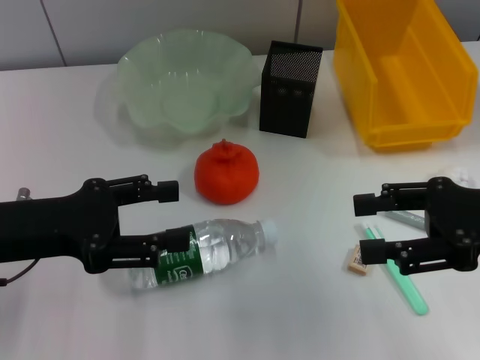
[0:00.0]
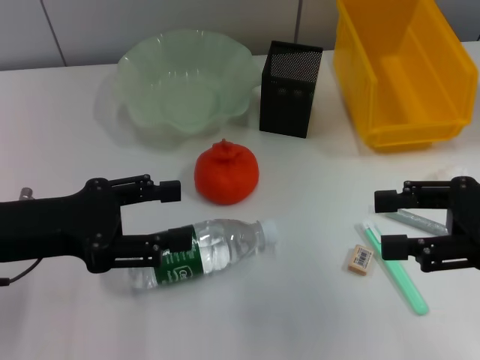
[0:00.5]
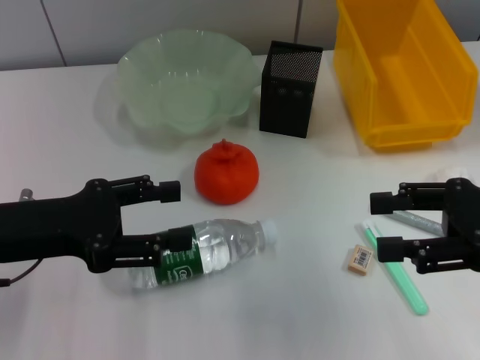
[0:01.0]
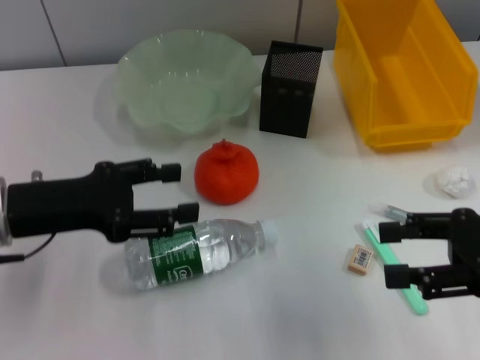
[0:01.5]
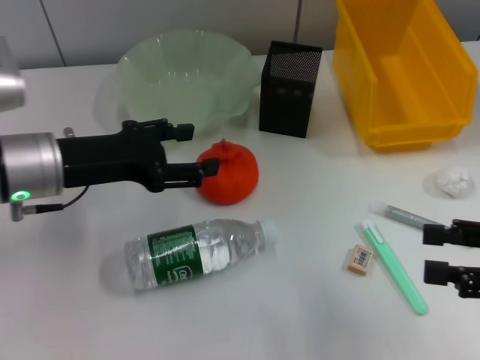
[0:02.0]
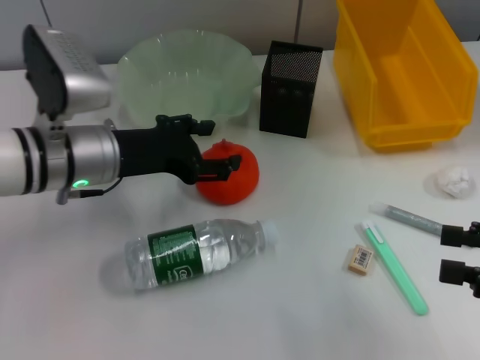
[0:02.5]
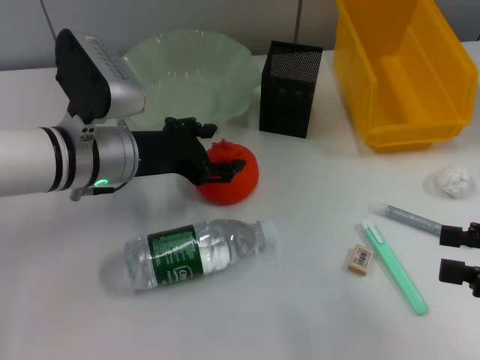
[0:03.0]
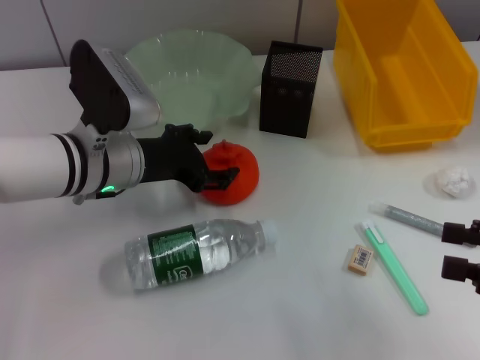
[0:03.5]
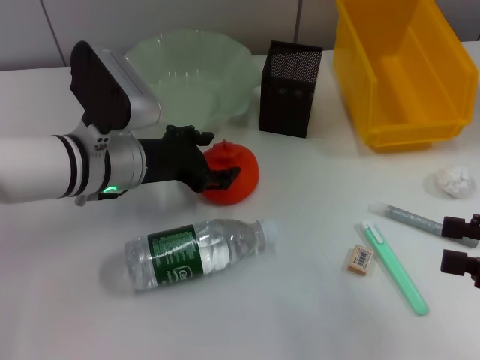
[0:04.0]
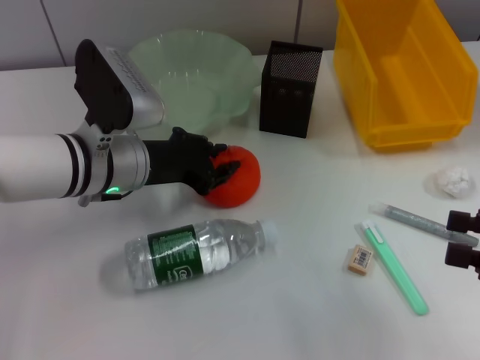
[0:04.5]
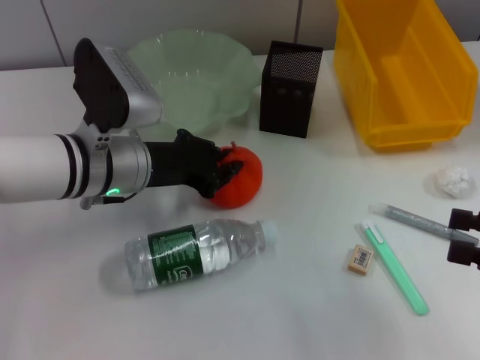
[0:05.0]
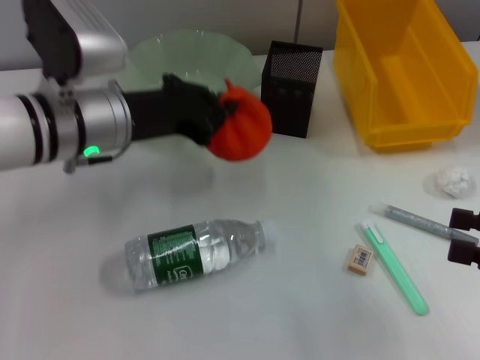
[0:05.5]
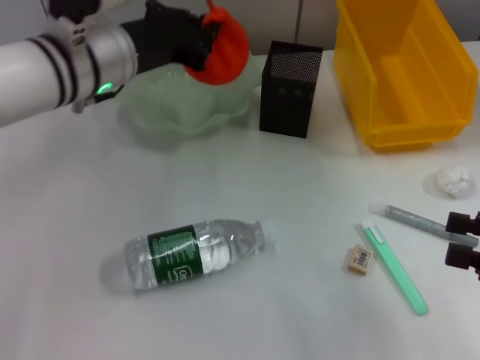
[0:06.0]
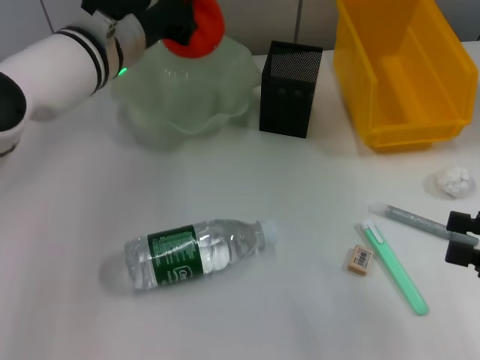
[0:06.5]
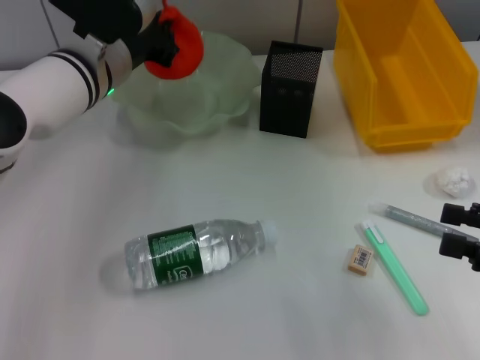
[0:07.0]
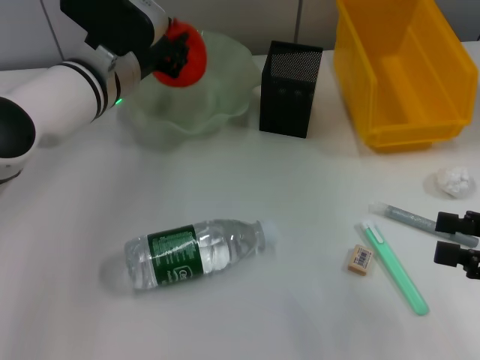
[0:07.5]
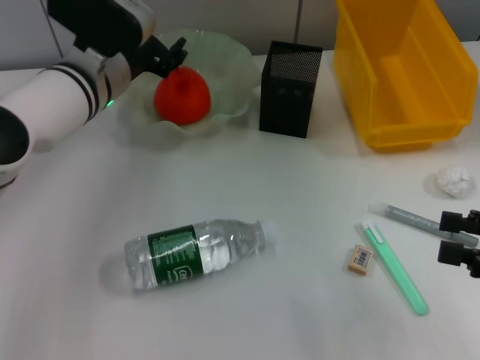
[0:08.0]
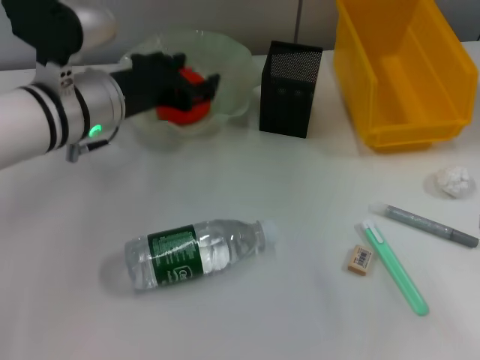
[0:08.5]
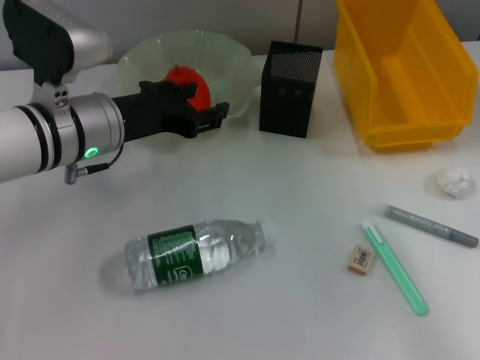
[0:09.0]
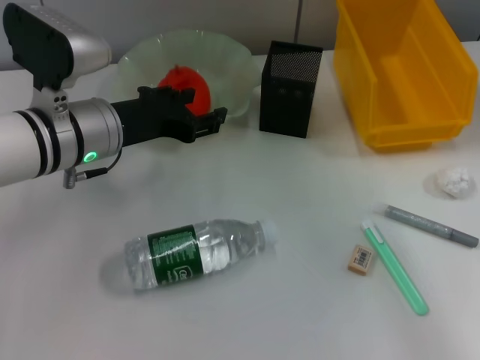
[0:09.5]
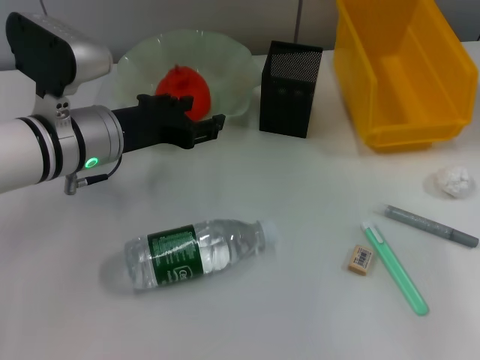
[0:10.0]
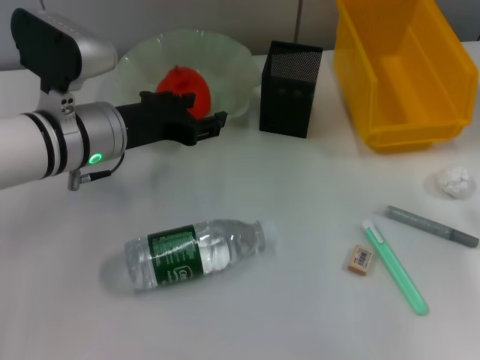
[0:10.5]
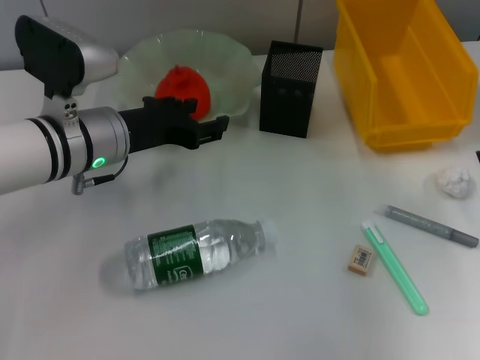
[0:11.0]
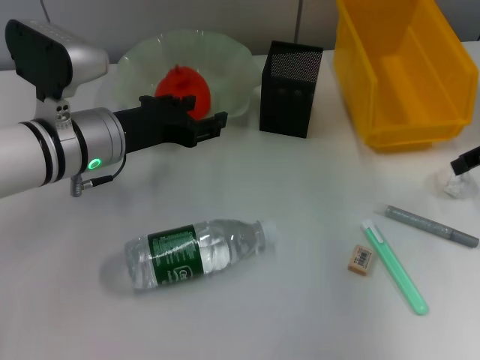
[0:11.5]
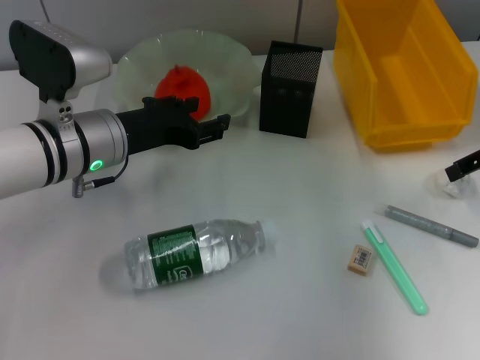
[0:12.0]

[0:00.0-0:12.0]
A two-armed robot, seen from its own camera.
Step, 0:00.0 to 0:04.5: Grab the orange with the left hand.
Step, 0:05.0 to 0:07.5: Place the orange into the fruit bowl with the left hand.
0:00.0 to 0:02.0: The left gripper heads forward, covering roughly 5 cm. The right gripper is displaced to the right and backward by roughly 5 cm.
0:02.0 to 0:04.0: The left gripper travels to the right by roughly 5 cm.
0:04.0 to 0:06.0: The left gripper heads upward, covering some 10 cm, and closes up.
0:06.0 to 0:08.0: The left gripper changes place by approximately 5 cm, and opens up.
0:08.0 to 0:10.0: The right gripper heads upward and forward, covering some 15 cm. Meanwhile the left gripper goes approximately 5 cm backward.
0:10.0 to 0:12.0: The right gripper travels forward and downward by some 10 cm.

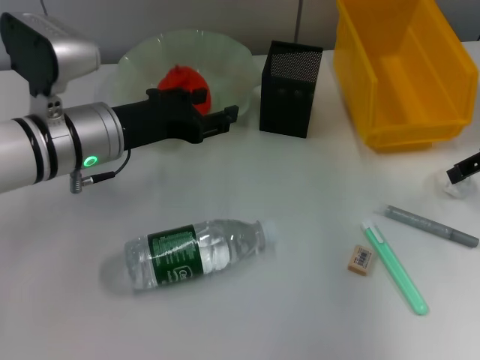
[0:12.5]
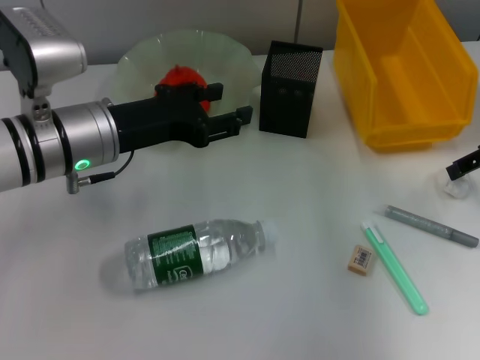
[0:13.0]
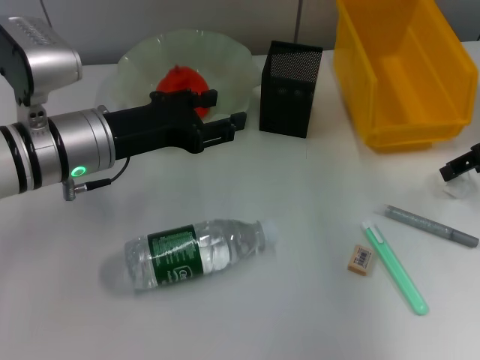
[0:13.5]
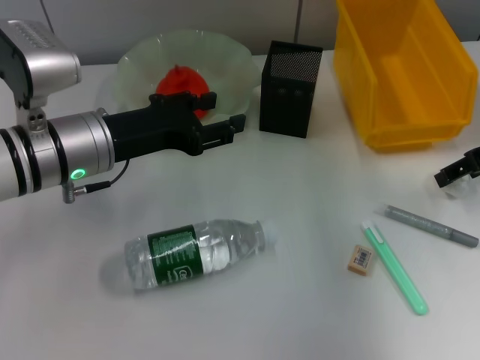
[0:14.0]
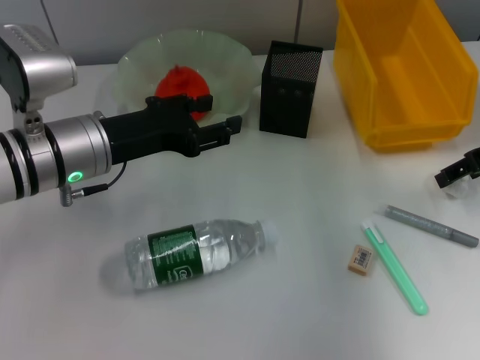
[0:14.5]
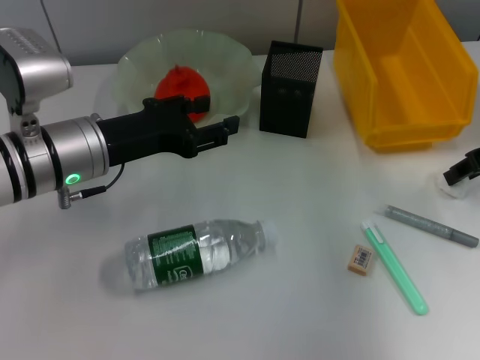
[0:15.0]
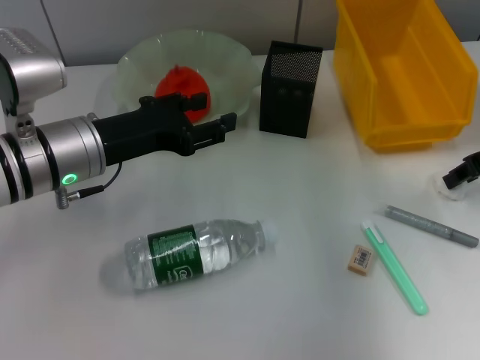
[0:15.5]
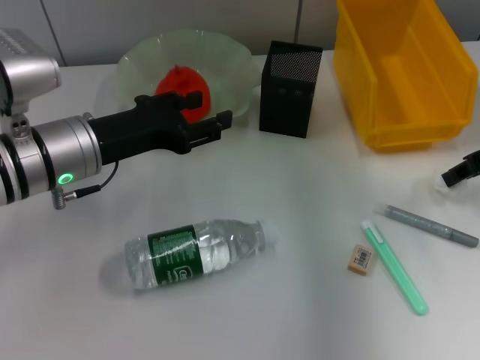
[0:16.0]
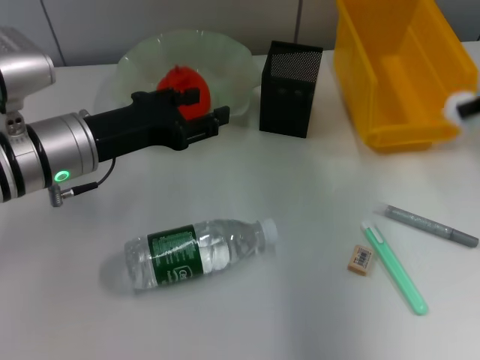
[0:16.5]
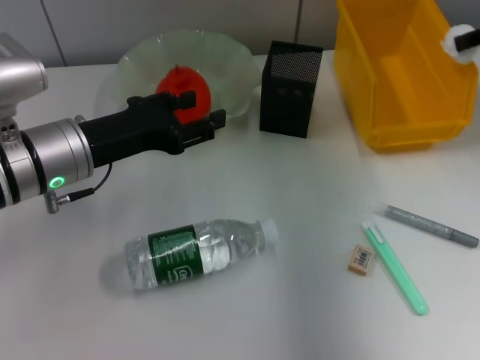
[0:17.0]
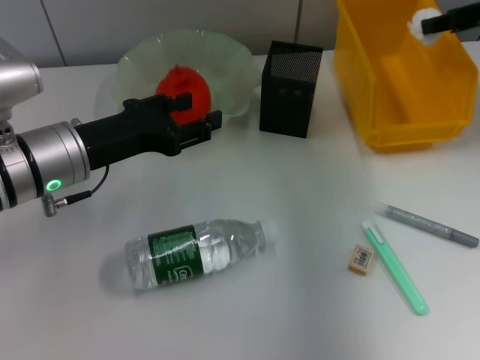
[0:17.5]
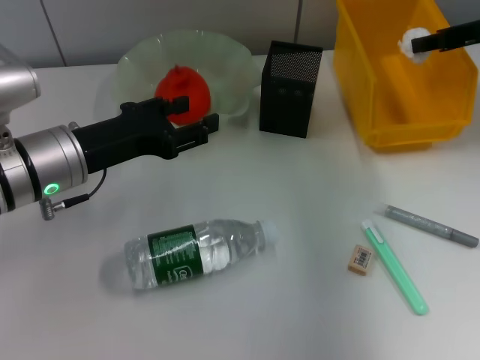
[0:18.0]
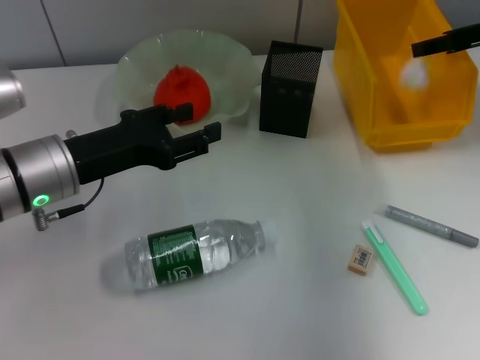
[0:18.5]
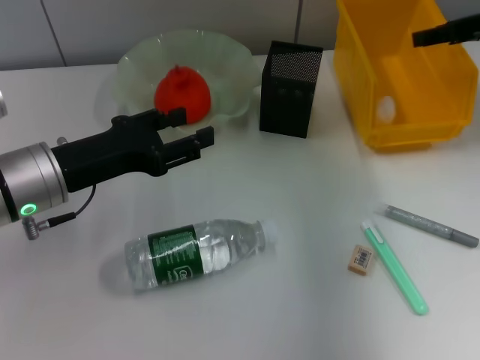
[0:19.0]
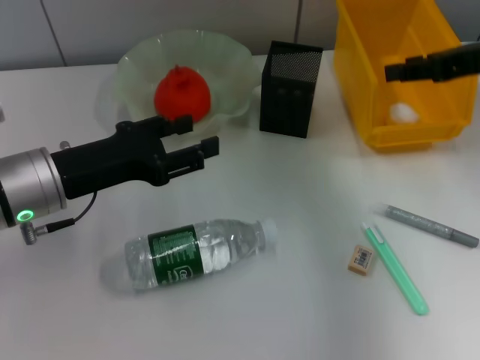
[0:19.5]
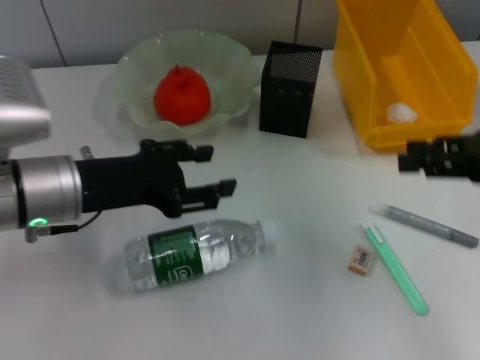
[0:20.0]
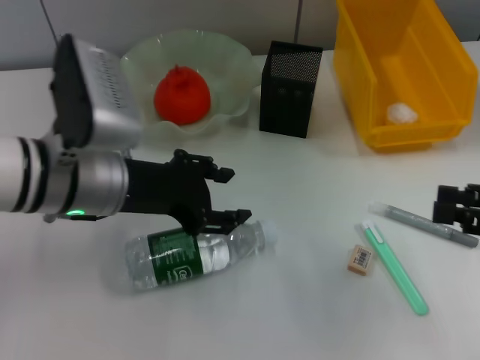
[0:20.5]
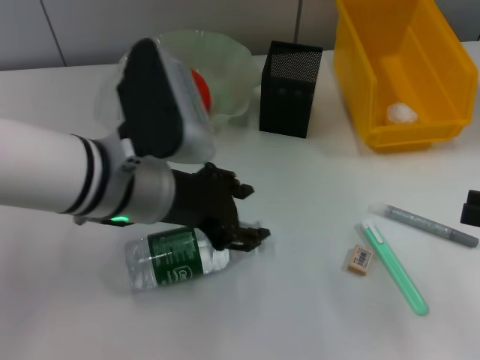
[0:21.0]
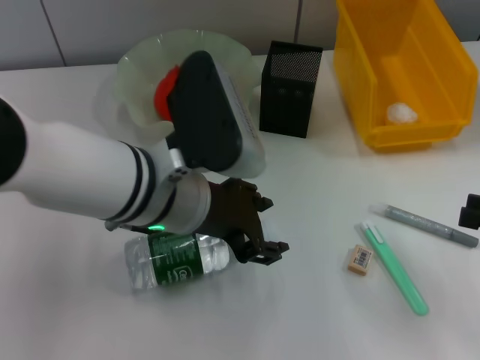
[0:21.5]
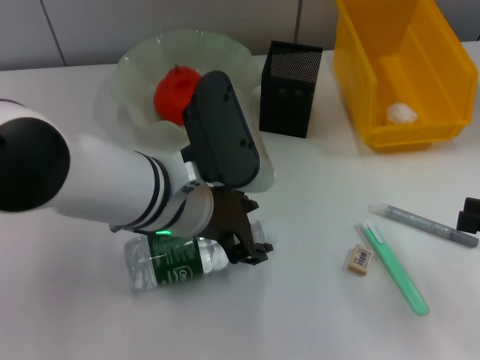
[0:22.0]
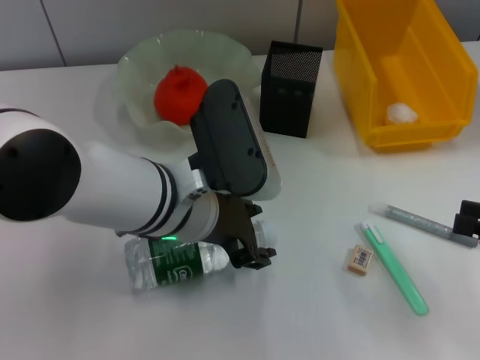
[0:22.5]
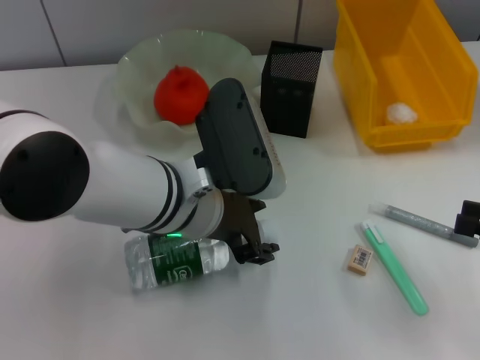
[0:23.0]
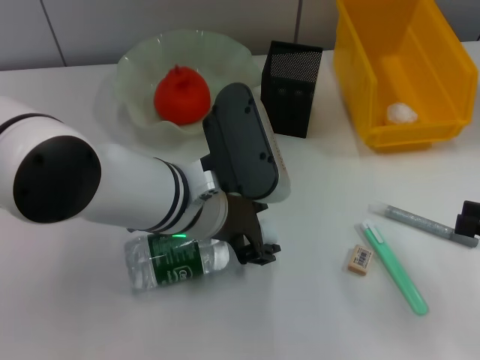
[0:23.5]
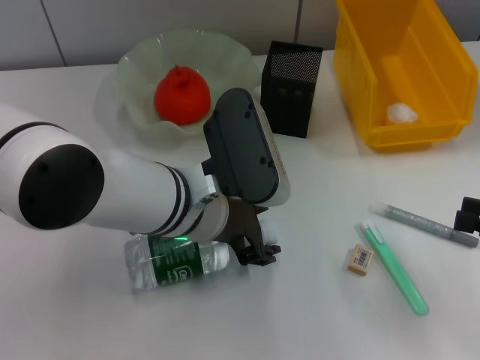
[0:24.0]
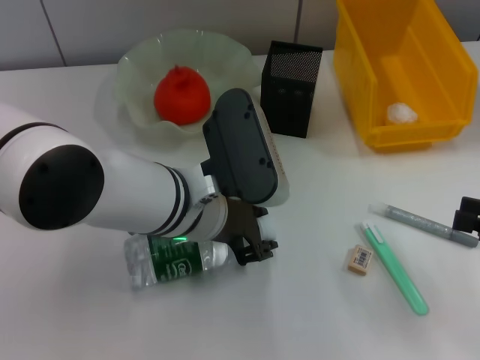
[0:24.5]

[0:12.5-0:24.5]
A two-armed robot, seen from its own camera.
Step, 0:12.5 to 0:15.0: Grab the paper ball with the right hand.
Step, 0:15.5 to 0:19.0: Place the paper ball into the trash can with the right hand.
0:12.5 to 0:14.5: There are only small adjustments of the grippers.
0:14.5 to 0:16.5: The right gripper shifts roughly 10 cm upward, and closes up.
0:16.5 to 0:18.5: The right gripper travels forward by about 5 cm.
0:18.5 to 0:20.5: The left gripper travels to the right by approximately 5 cm; the right gripper travels backward by approximately 20 cm.
0:20.5 to 0:22.5: The left gripper is displaced to the right by approximately 10 cm.
0:22.5 to 0:24.5: The grippers make only small movements.

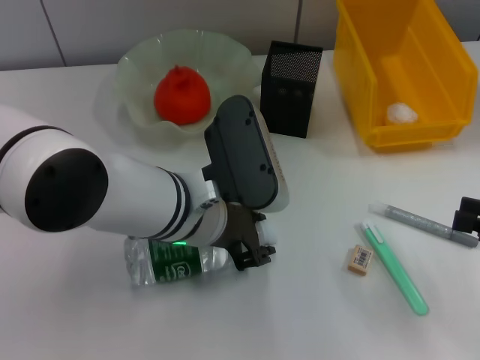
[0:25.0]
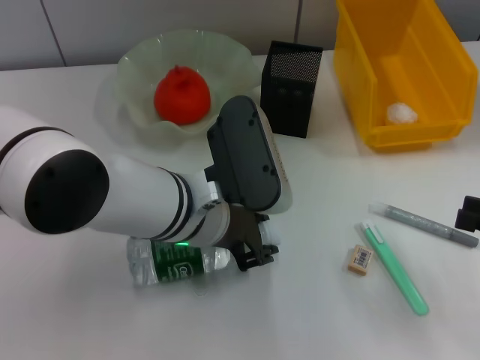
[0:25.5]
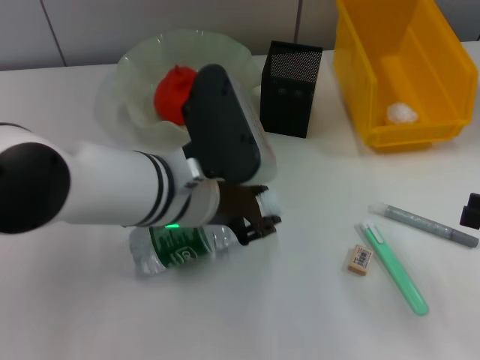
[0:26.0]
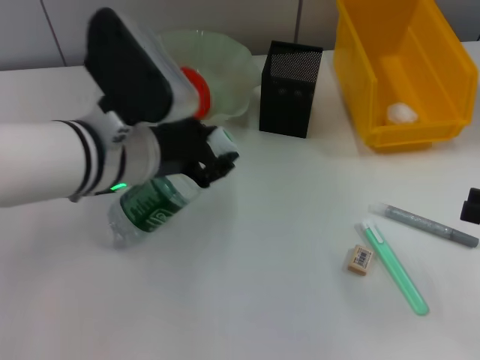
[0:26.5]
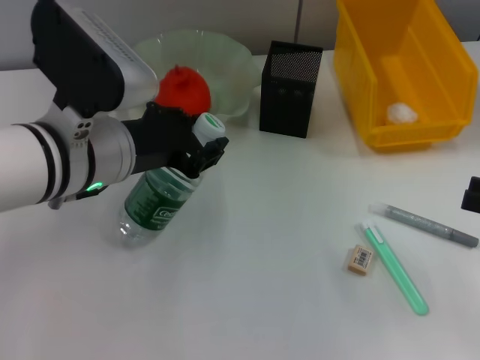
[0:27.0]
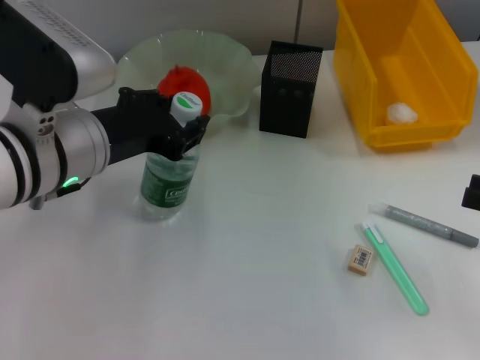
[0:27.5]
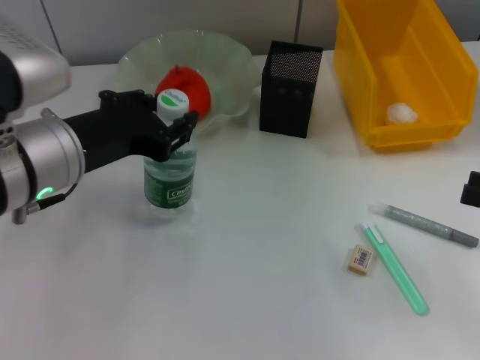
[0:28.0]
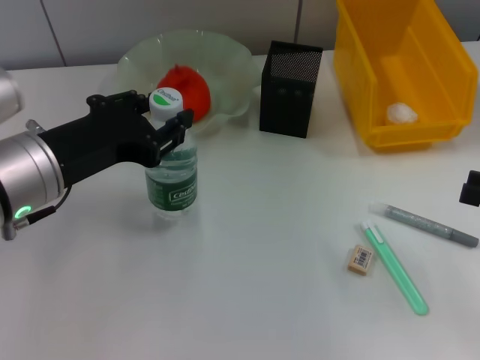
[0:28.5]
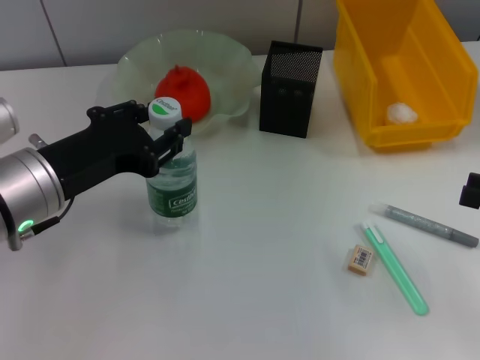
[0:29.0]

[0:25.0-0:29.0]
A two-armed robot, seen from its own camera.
0:25.0 to 0:27.0: The left gripper heads to the left and upward, covering some 10 cm.
0:27.0 to 0:29.0: The left gripper goes about 5 cm to the left.
